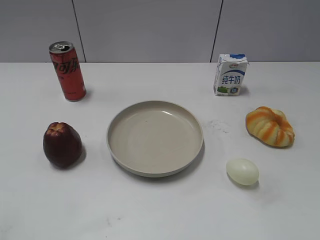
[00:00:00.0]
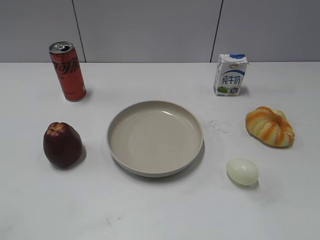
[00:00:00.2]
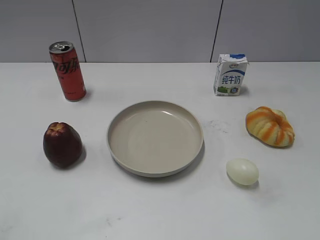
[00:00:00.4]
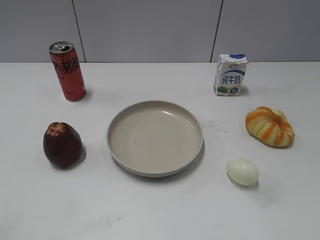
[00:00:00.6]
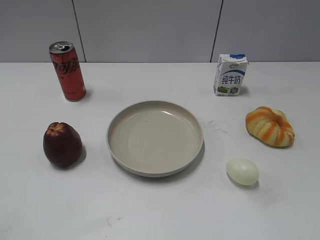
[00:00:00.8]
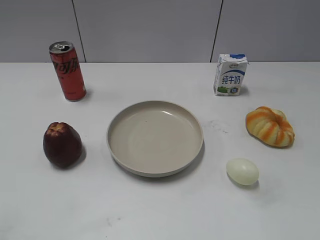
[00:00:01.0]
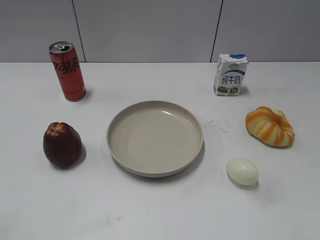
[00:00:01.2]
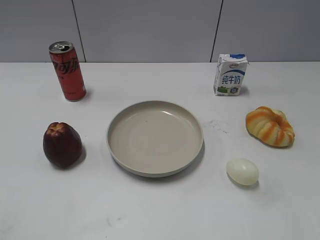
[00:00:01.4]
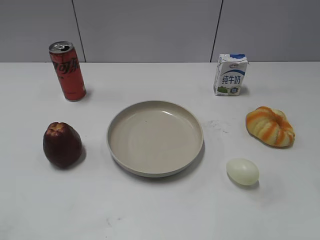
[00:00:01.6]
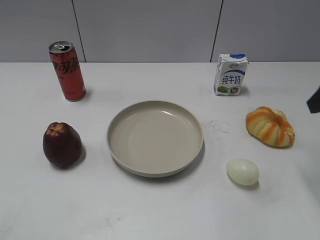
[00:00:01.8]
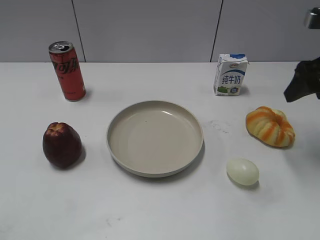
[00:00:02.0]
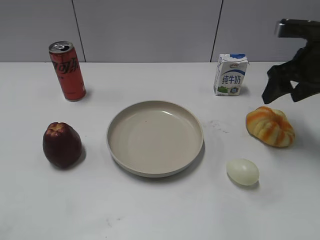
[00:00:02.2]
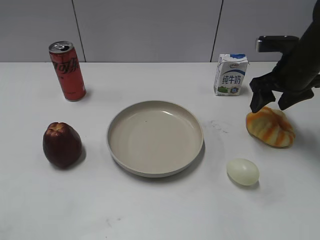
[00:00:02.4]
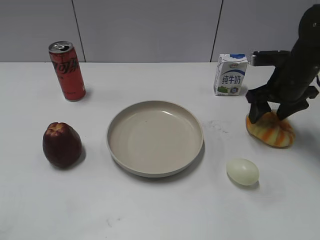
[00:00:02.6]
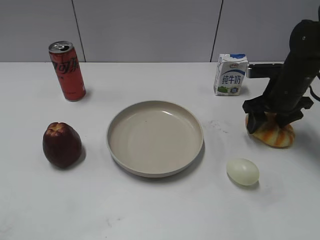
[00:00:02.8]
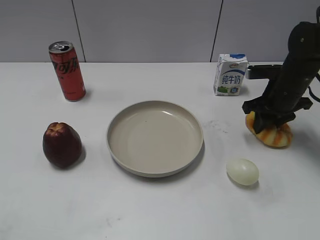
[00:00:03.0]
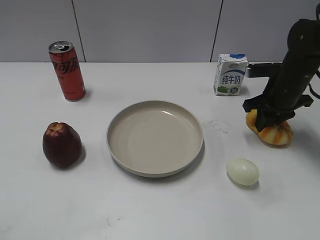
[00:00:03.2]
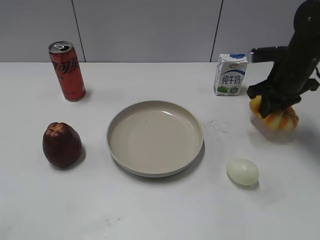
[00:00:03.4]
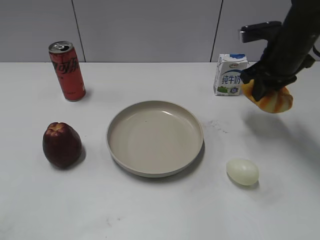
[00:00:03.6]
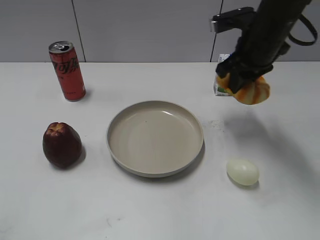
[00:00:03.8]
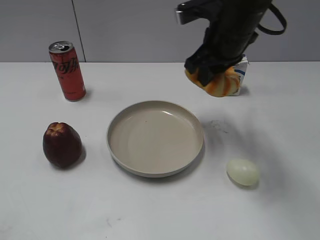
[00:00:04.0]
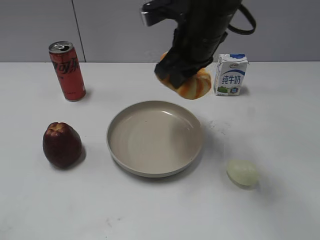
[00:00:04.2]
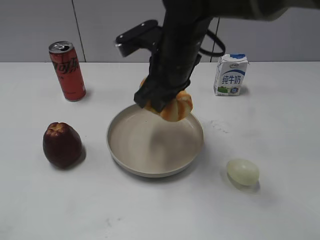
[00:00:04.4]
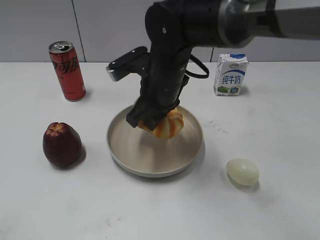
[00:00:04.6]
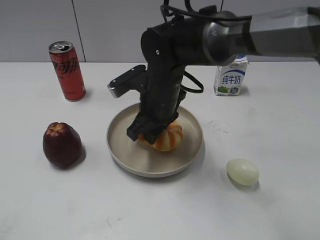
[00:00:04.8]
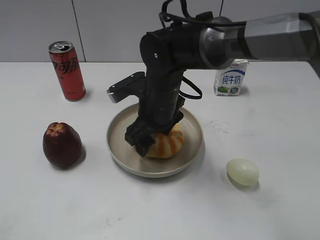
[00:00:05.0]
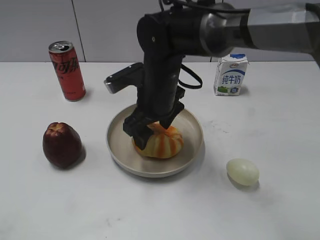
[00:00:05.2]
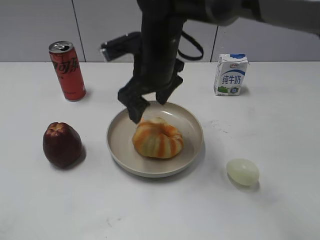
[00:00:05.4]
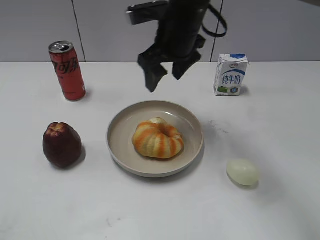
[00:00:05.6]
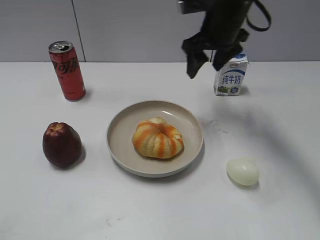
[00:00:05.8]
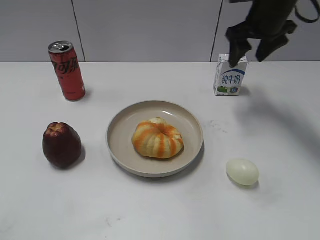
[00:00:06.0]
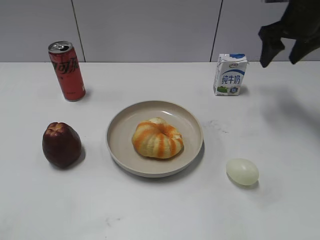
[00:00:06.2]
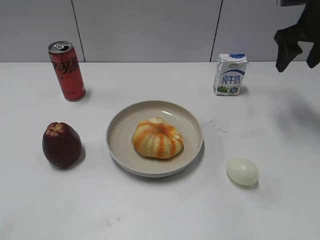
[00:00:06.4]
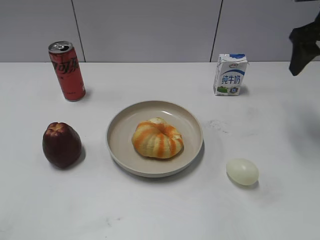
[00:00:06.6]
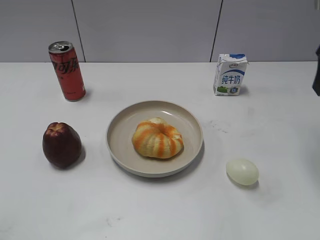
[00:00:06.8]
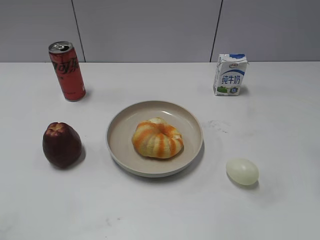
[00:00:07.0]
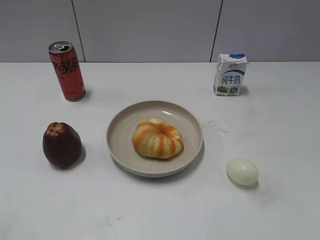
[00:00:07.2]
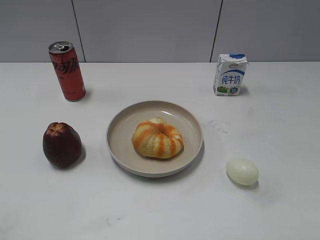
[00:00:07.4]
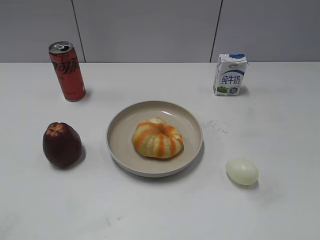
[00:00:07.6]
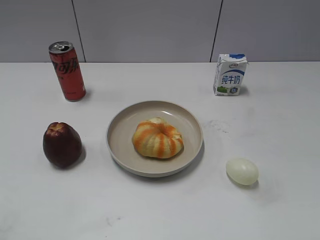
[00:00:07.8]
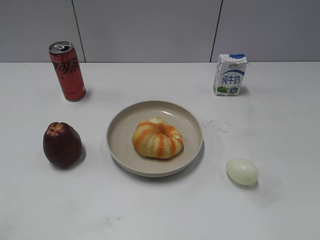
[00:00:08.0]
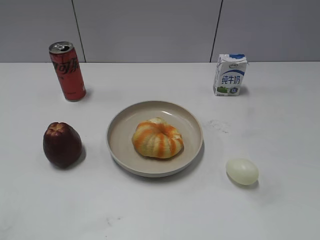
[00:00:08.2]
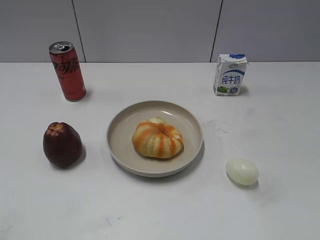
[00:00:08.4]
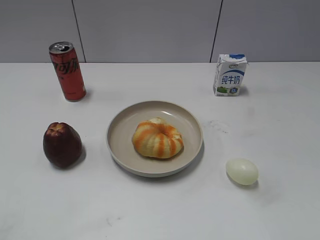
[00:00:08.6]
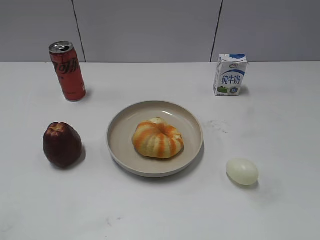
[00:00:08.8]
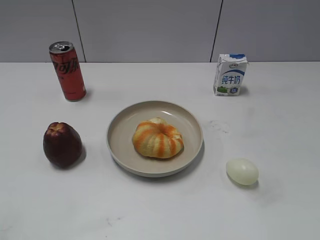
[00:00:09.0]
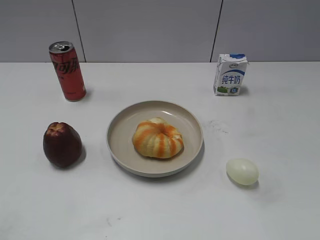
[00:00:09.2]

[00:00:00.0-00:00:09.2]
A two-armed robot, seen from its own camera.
Step, 00:00:00.8 to 00:00:03.0: Grasp the round bread with right gripper.
Step, 00:00:03.2 to 00:00:05.4: Place the round bread on the plate with right gripper.
00:00:01.6 to 00:00:03.0: The right gripper travels forward and downward by some 25 cm, and closes its fingers.
00:00:03.0 to 00:00:04.6: The right gripper moves to the left, some 25 cm.
00:00:04.6 to 00:00:06.2: The right gripper goes approximately 30 cm to the right and forward, and opens its fingers.
00:00:06.2 to 00:00:07.6: The right gripper is displaced backward by about 35 cm.
